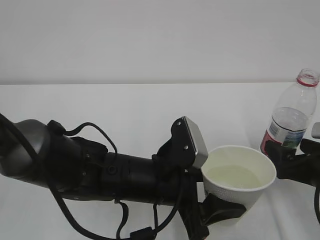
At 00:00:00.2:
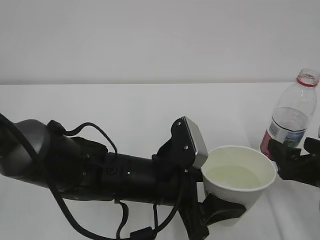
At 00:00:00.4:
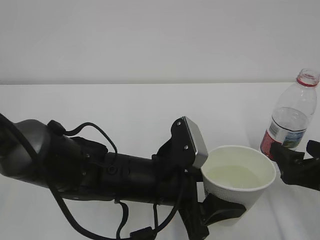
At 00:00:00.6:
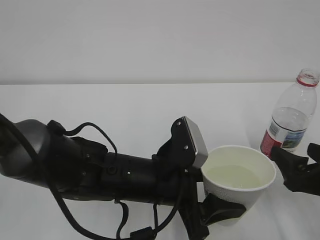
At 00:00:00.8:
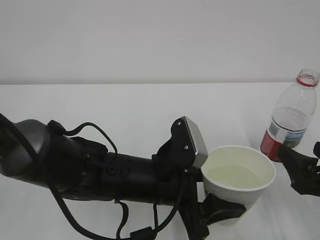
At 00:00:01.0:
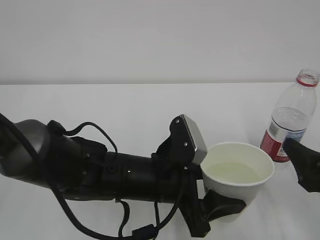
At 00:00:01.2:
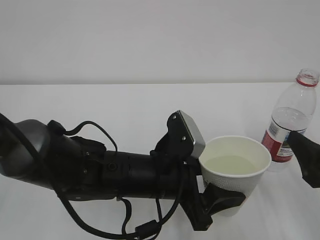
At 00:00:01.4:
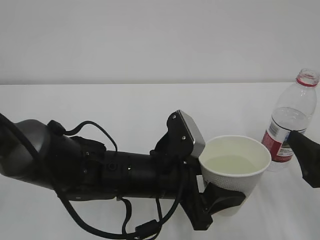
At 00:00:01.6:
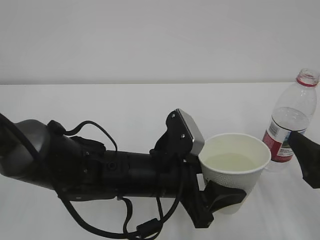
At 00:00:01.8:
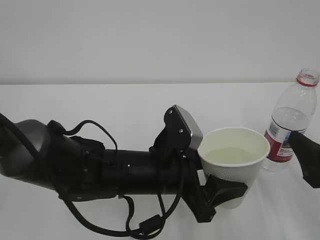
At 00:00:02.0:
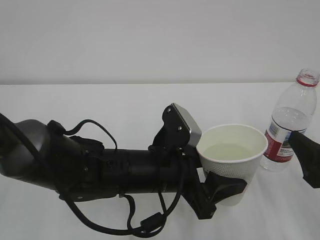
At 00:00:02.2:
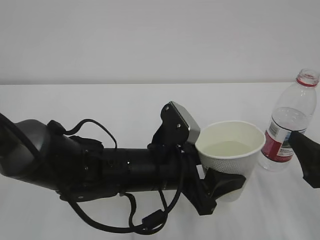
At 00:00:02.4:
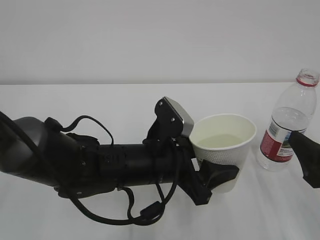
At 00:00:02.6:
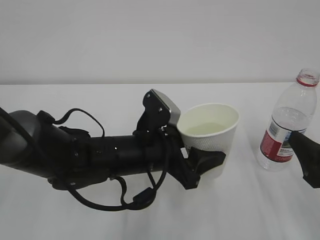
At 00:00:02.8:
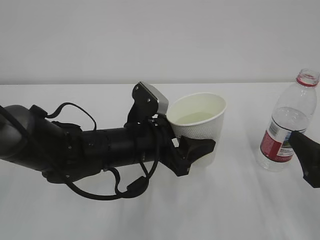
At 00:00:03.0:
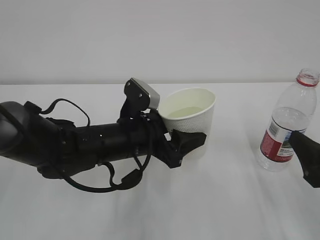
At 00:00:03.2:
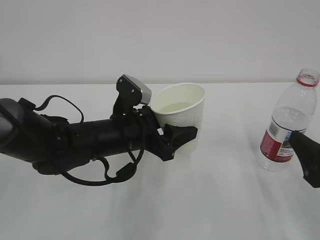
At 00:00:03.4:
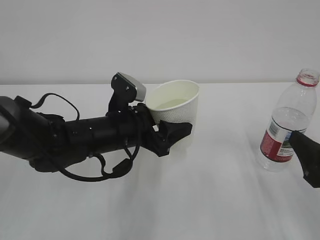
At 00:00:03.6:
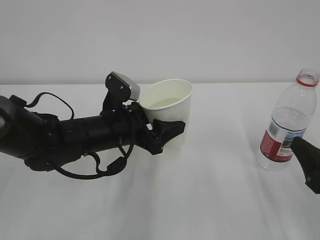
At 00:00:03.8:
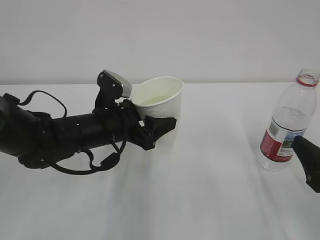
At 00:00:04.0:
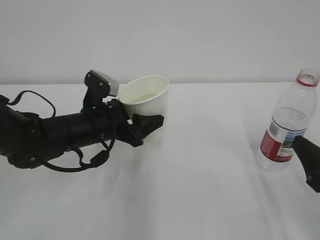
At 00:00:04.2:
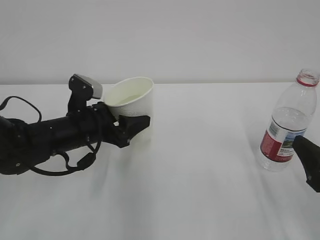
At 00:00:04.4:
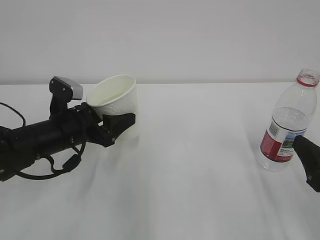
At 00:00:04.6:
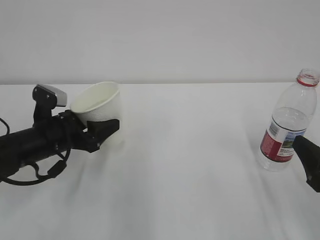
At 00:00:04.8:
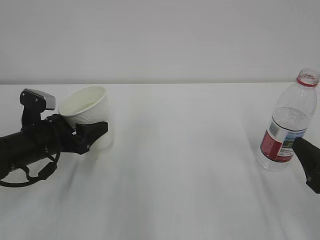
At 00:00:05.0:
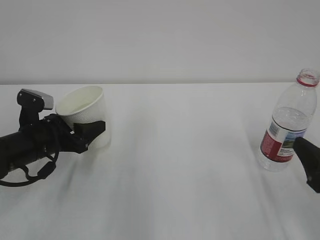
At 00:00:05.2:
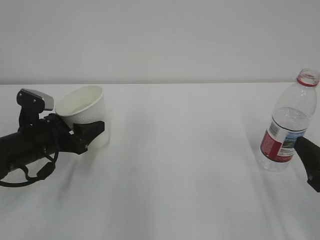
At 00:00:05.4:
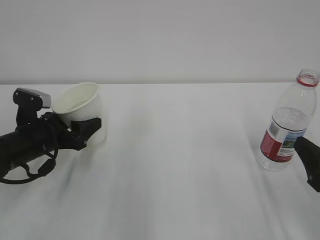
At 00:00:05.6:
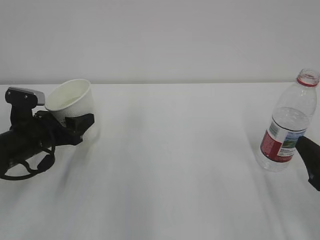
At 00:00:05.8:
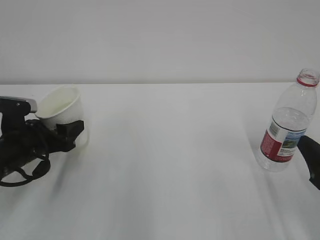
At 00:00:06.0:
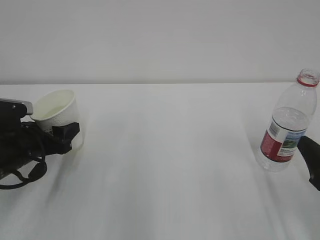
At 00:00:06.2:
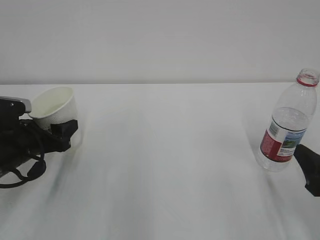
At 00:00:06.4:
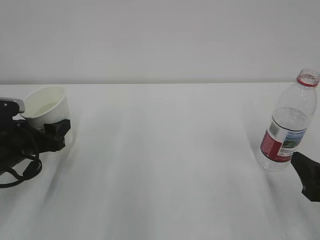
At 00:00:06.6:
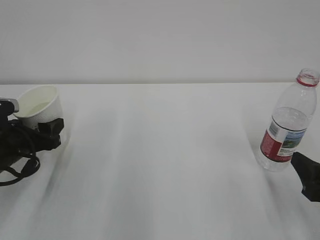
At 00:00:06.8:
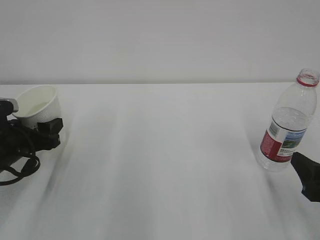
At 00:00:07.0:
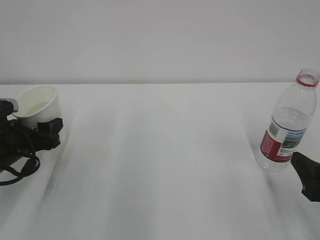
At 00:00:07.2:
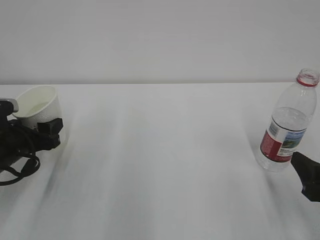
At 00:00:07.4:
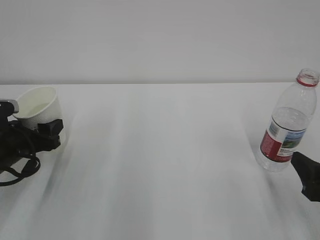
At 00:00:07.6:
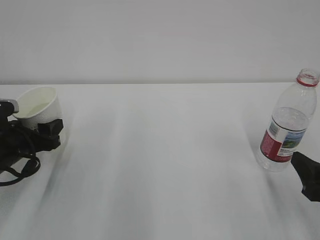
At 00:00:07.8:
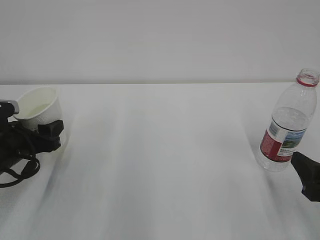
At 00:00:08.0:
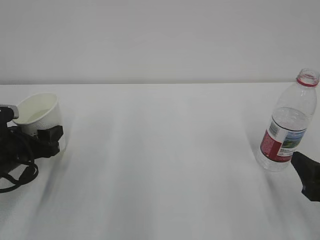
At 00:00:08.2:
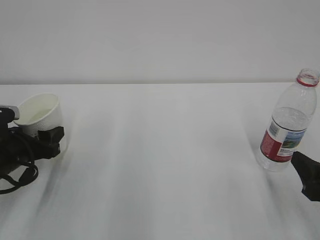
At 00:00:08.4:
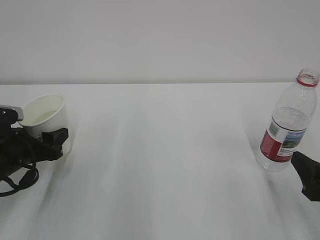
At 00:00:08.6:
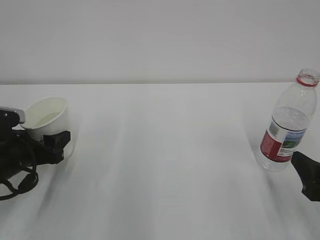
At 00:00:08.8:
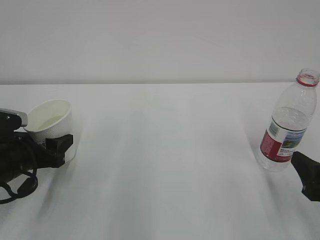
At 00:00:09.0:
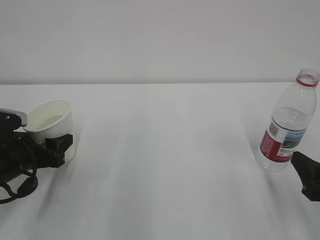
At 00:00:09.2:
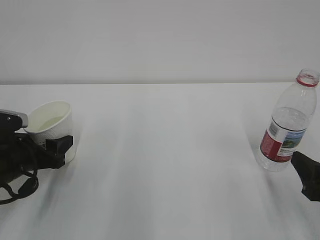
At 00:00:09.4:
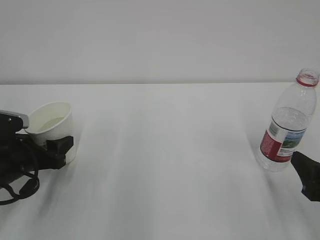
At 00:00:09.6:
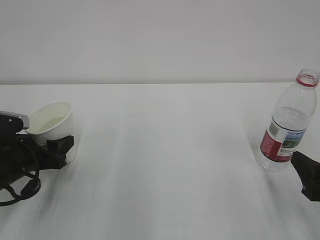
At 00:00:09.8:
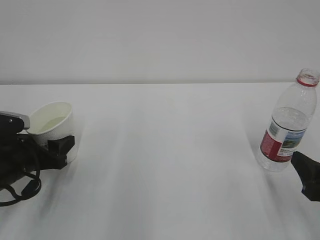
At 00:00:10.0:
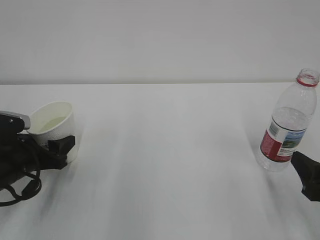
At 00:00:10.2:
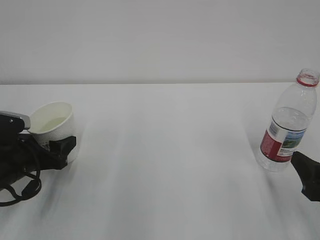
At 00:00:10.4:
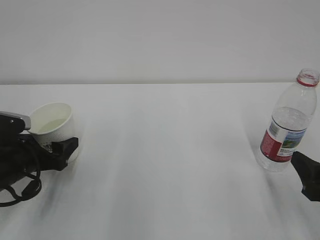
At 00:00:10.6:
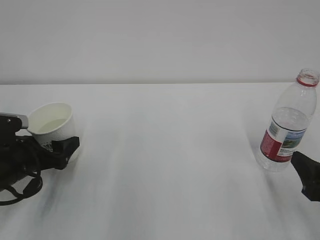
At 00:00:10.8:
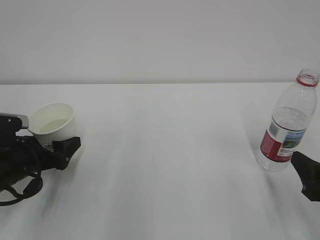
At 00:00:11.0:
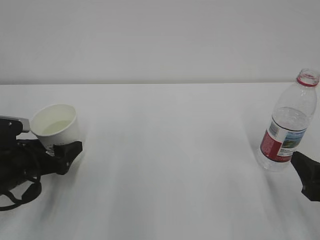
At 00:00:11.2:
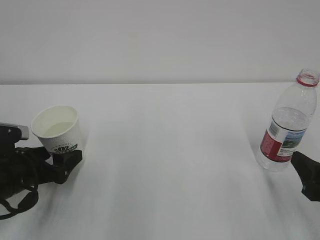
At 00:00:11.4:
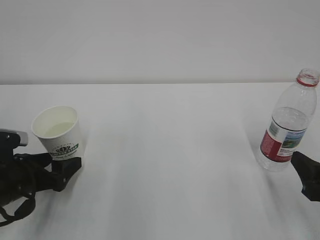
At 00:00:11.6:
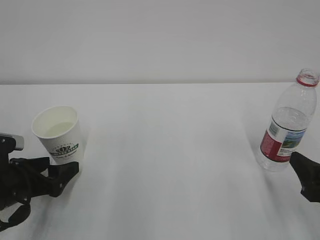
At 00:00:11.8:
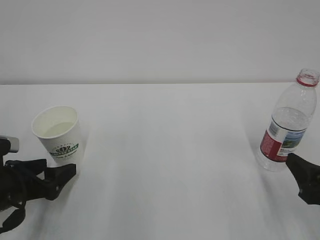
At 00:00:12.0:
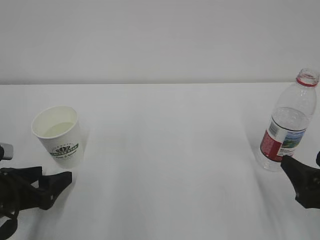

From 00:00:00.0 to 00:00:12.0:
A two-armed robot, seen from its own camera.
From 00:00:00.0 to 00:00:01.6: The right gripper travels backward and upward by about 5 cm.
From 00:00:01.6 to 00:00:03.0: The left gripper shifts roughly 5 cm forward.
From 00:00:03.0 to 00:00:04.4: The left gripper is displaced to the left by approximately 10 cm.
From 00:00:04.4 to 00:00:06.0: The left gripper moves to the left, approximately 10 cm.
From 00:00:06.0 to 00:00:09.0: The grippers move only a little.
From 00:00:09.0 to 00:00:10.4: The left gripper opens its fingers.
From 00:00:10.4 to 00:00:12.0: The left gripper travels backward by about 5 cm.

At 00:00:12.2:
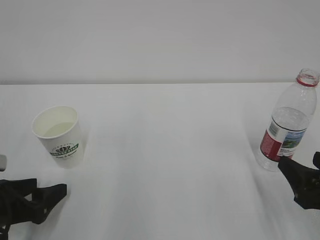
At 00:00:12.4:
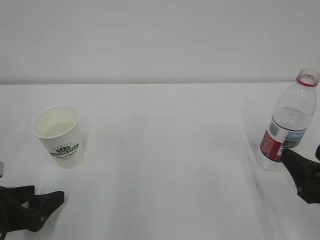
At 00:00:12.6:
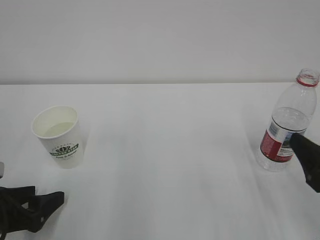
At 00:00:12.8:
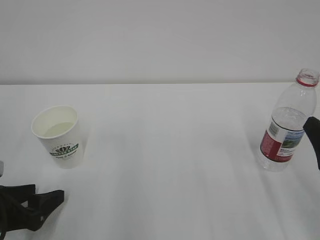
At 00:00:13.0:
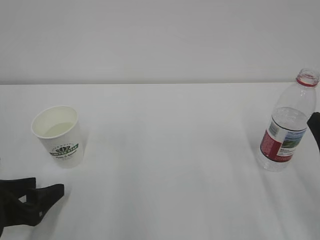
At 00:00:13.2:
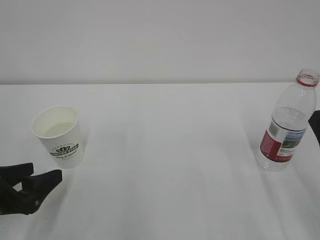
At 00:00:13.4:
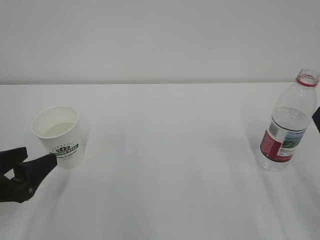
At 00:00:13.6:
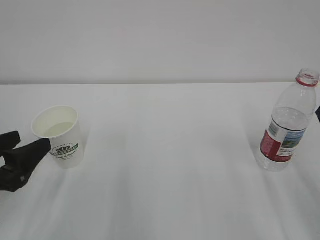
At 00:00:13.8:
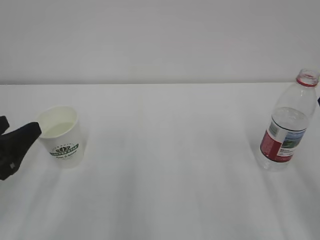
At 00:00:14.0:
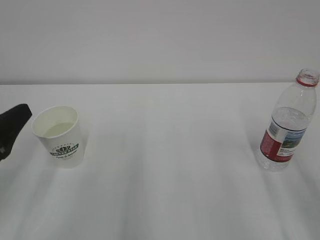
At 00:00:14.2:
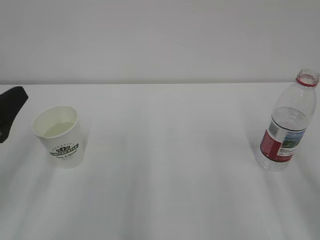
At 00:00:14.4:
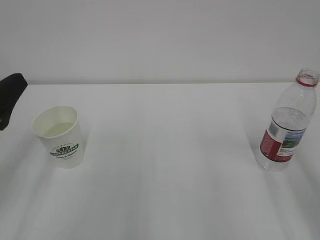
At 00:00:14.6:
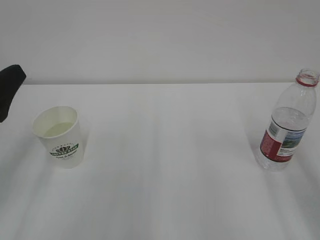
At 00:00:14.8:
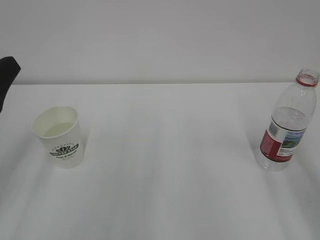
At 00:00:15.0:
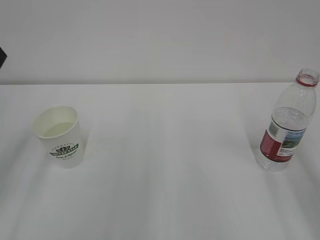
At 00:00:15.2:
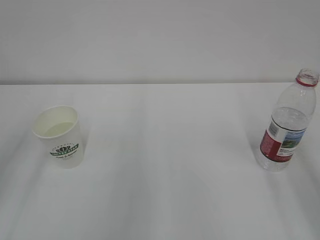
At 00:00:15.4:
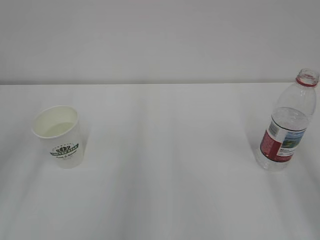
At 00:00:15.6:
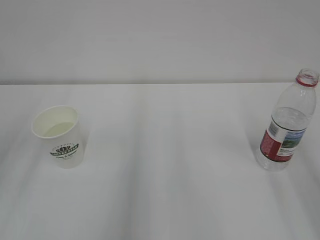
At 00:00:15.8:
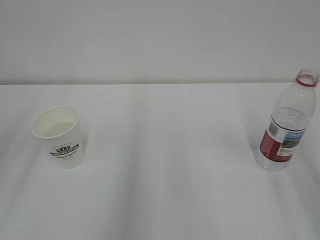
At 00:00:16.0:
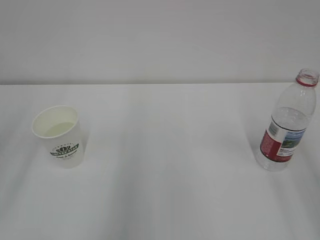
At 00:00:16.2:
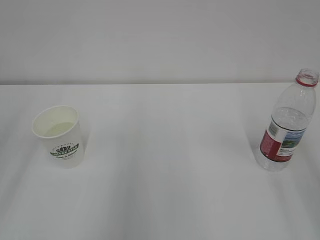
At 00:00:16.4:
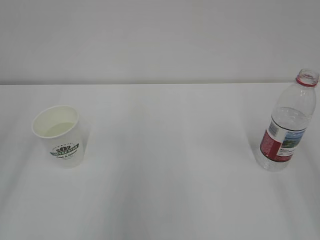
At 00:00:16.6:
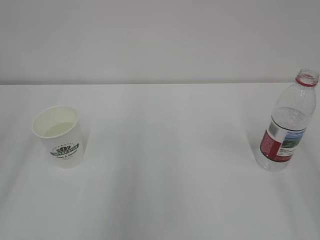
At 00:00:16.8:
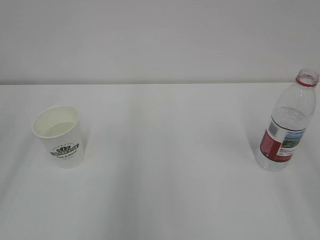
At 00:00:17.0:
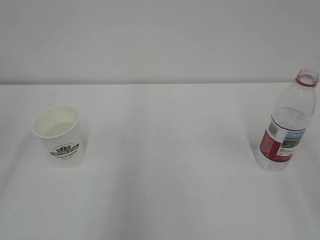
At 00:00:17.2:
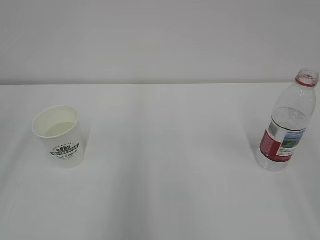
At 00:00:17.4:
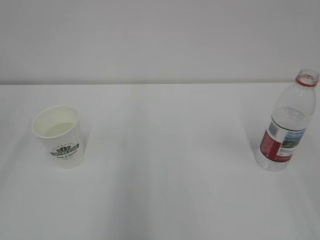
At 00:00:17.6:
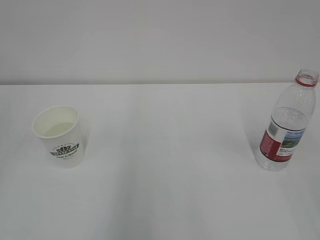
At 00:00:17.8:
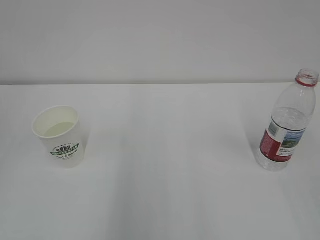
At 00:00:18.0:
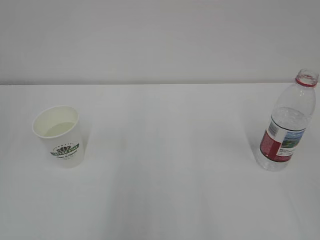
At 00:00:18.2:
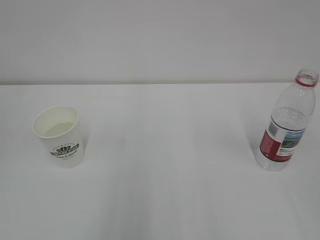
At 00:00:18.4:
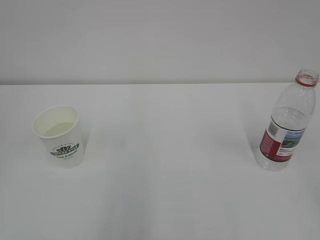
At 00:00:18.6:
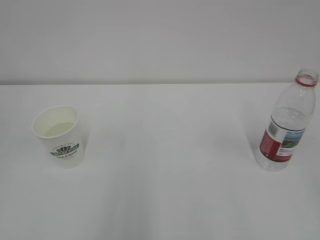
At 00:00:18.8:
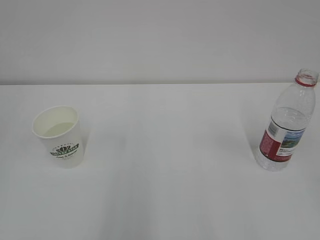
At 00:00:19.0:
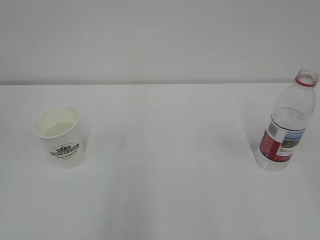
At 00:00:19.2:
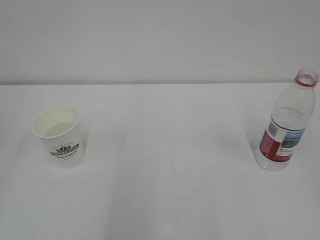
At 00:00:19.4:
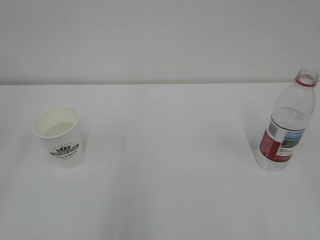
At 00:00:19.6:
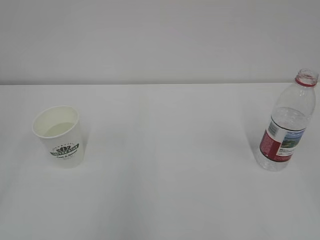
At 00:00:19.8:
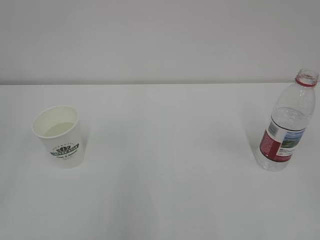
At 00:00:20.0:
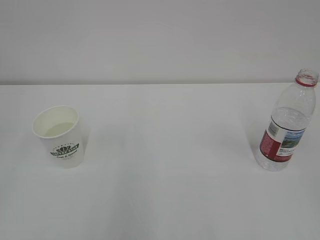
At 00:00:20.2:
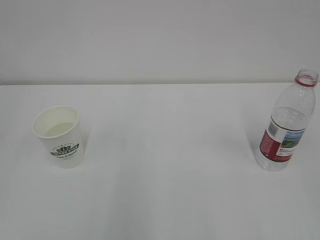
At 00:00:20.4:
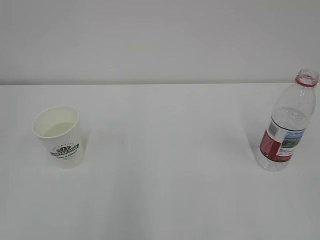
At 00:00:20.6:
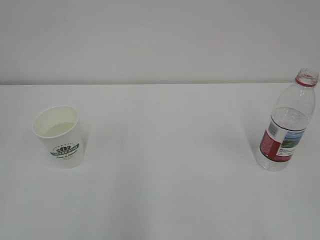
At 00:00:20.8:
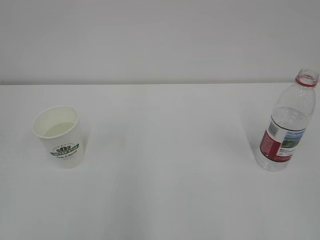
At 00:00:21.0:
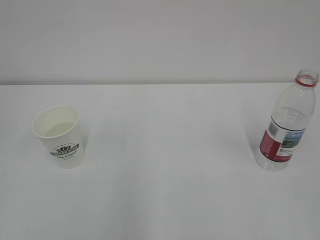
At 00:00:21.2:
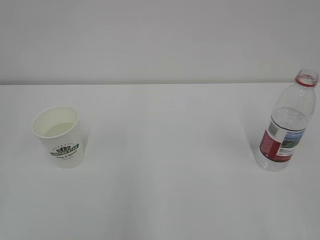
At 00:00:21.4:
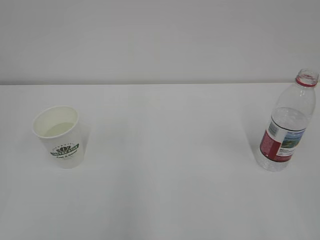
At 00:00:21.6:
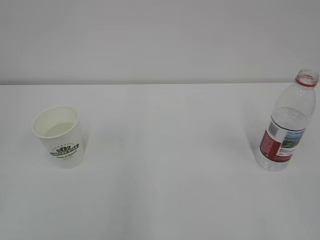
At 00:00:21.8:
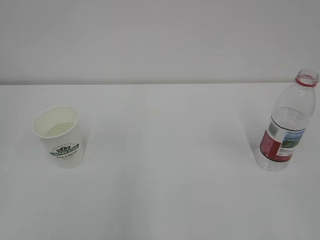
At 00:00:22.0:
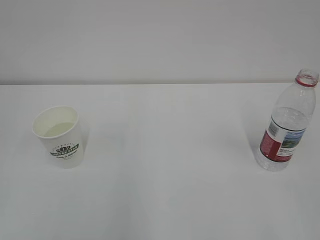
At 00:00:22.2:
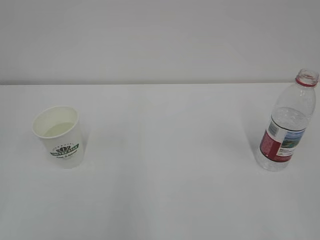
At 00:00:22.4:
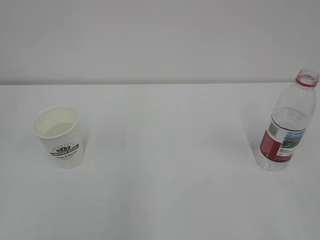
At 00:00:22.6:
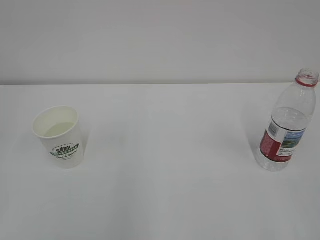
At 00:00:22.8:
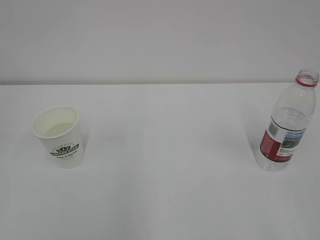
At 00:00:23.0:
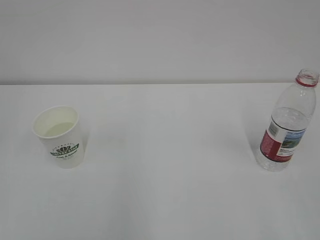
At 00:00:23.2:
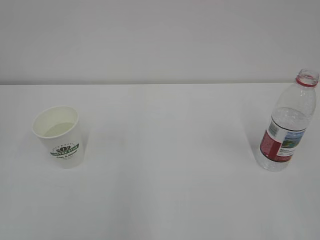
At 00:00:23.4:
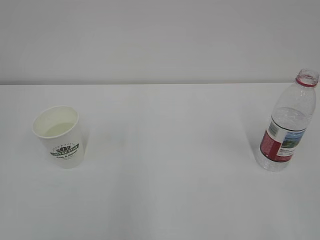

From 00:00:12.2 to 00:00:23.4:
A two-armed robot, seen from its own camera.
From 00:00:12.2 to 00:00:13.8: Both grippers travel together upward, some 10 cm.
From 00:00:13.8 to 00:00:15.4: The left gripper moves upward, about 10 cm.
From 00:00:21.8 to 00:00:23.4: Both grippers stay about where they are.
